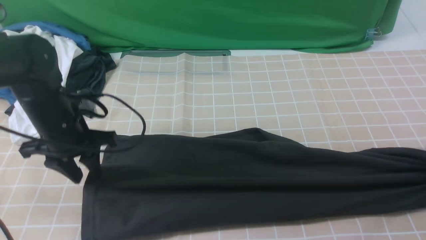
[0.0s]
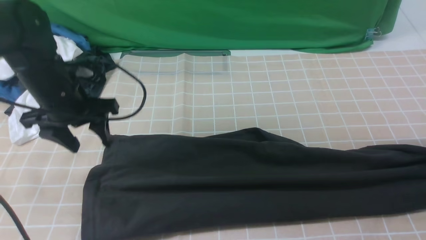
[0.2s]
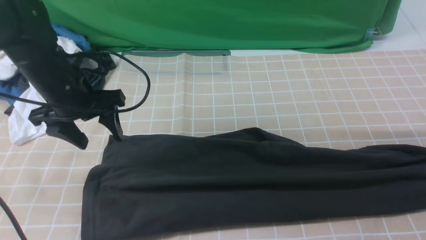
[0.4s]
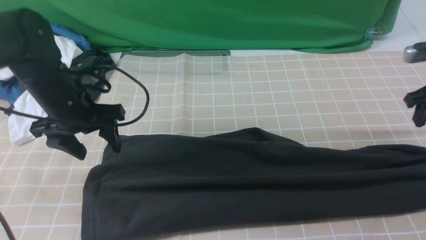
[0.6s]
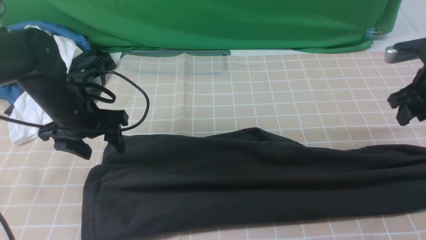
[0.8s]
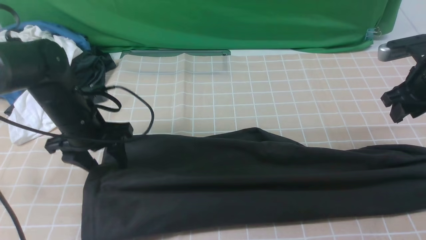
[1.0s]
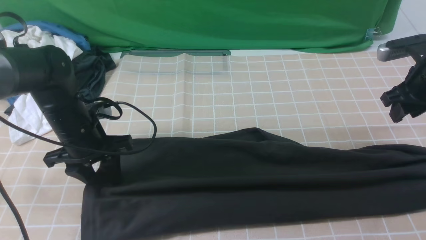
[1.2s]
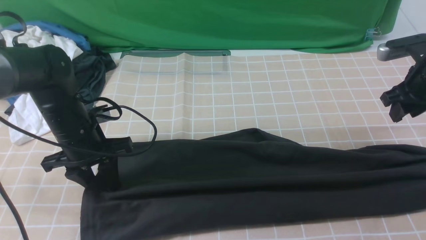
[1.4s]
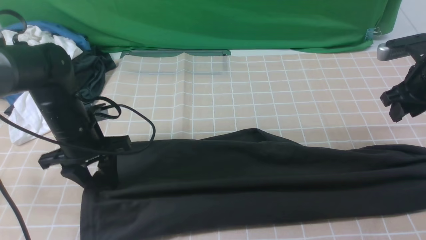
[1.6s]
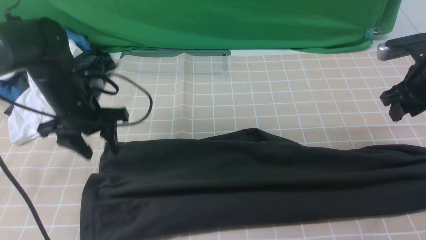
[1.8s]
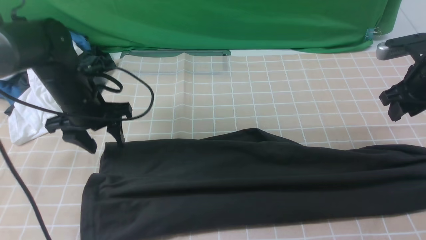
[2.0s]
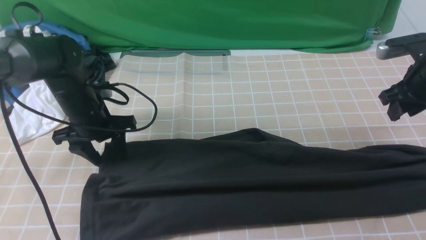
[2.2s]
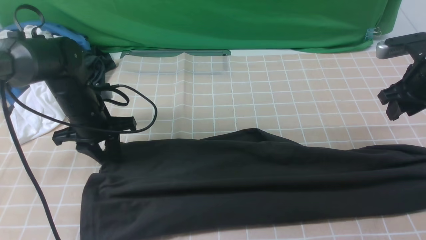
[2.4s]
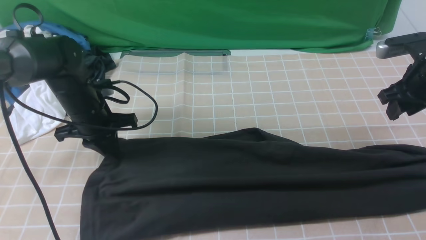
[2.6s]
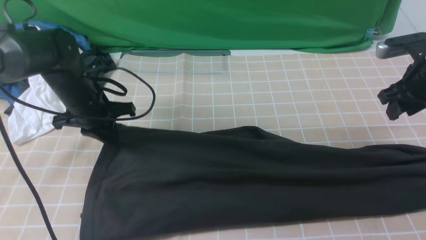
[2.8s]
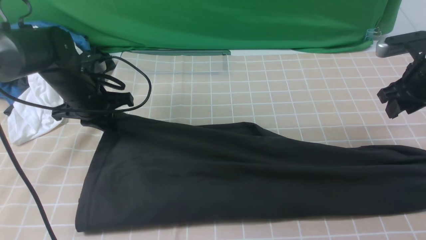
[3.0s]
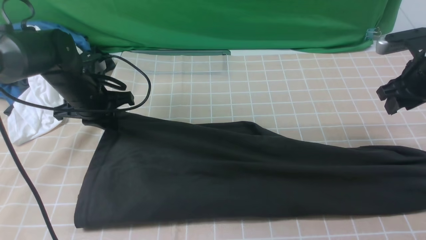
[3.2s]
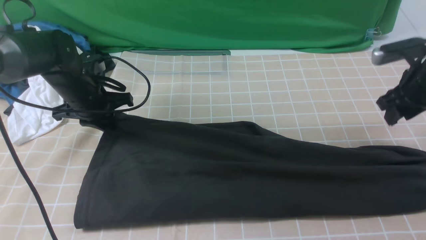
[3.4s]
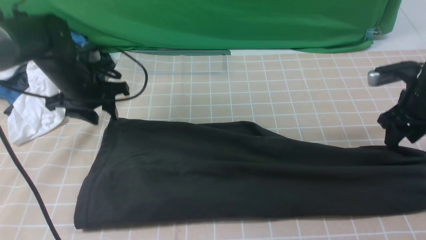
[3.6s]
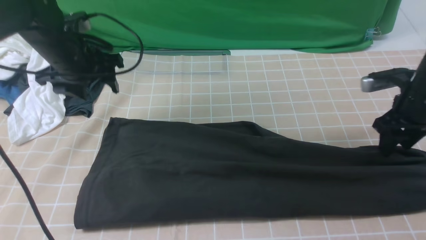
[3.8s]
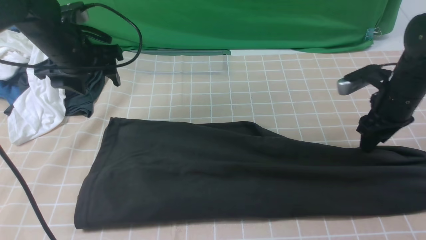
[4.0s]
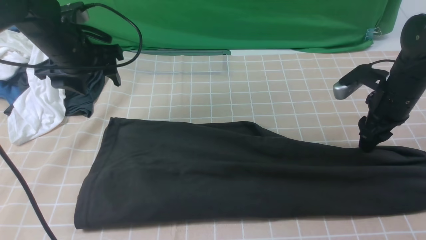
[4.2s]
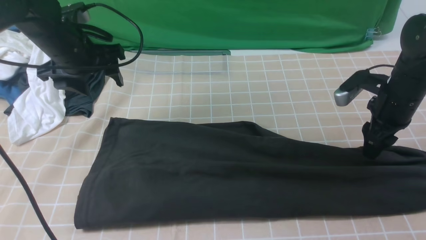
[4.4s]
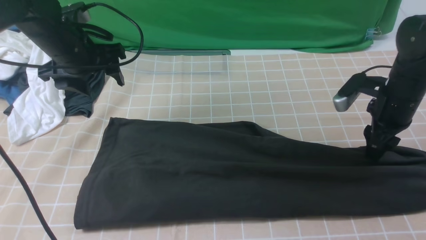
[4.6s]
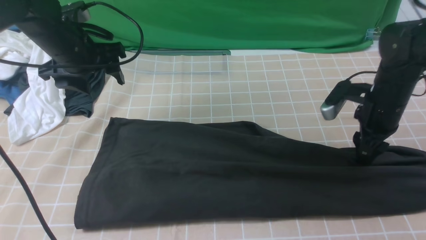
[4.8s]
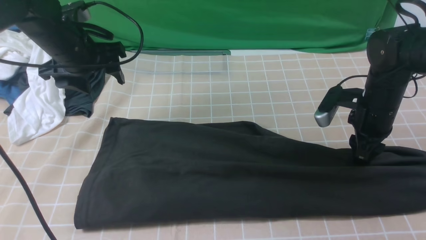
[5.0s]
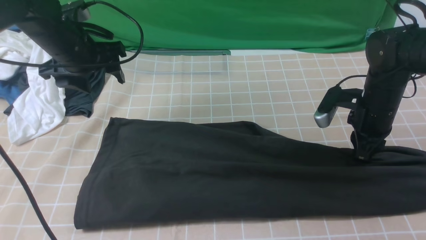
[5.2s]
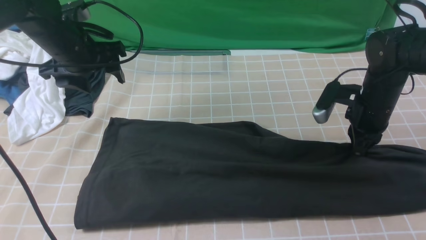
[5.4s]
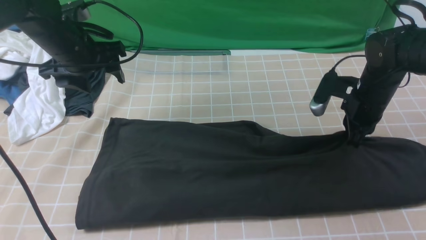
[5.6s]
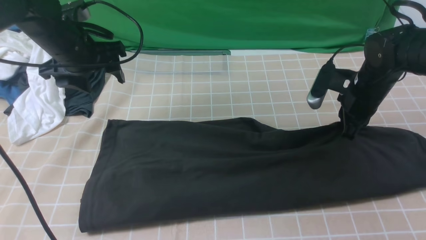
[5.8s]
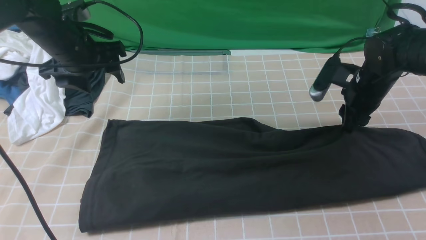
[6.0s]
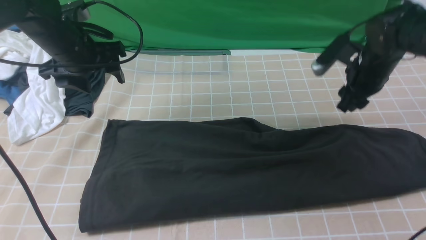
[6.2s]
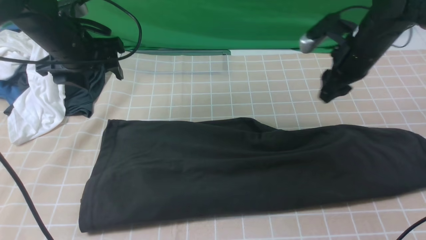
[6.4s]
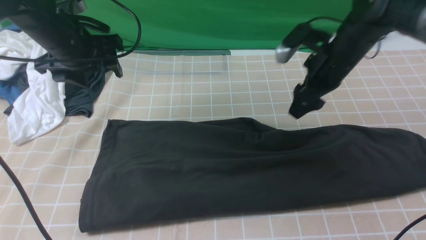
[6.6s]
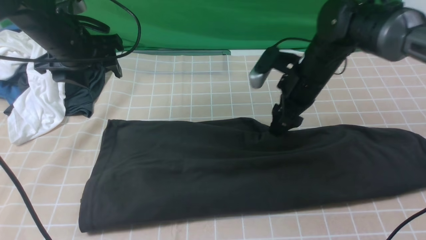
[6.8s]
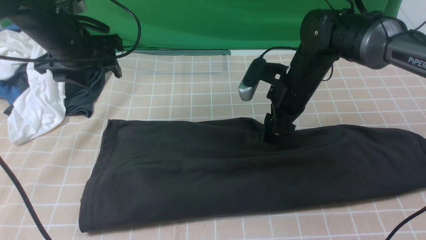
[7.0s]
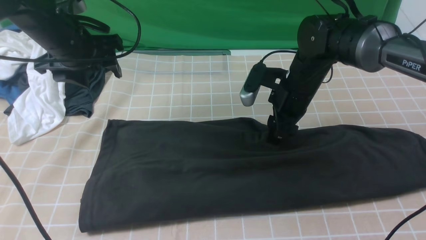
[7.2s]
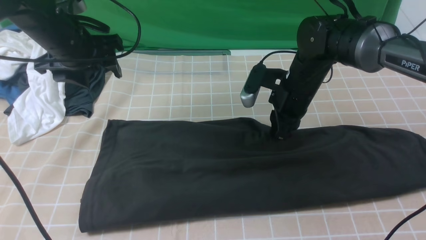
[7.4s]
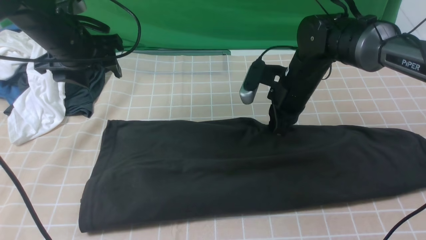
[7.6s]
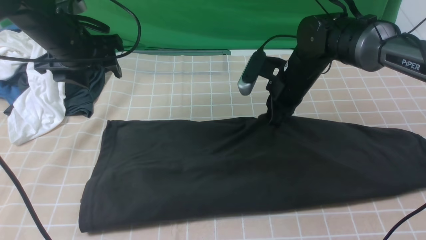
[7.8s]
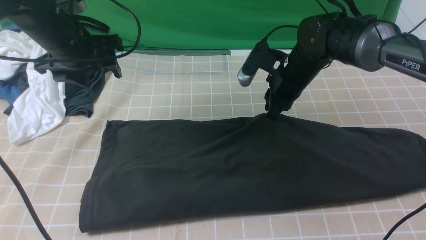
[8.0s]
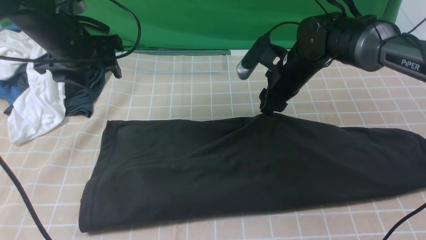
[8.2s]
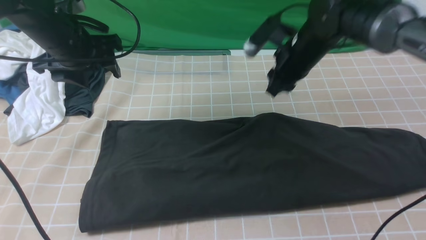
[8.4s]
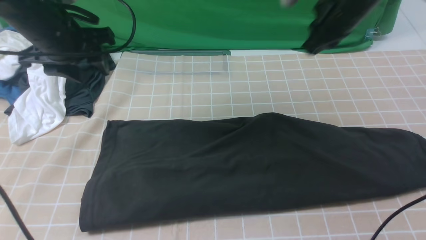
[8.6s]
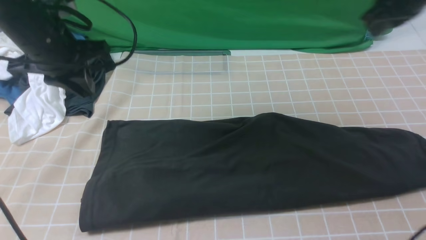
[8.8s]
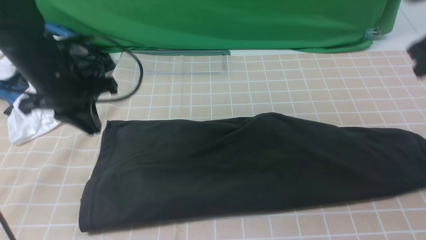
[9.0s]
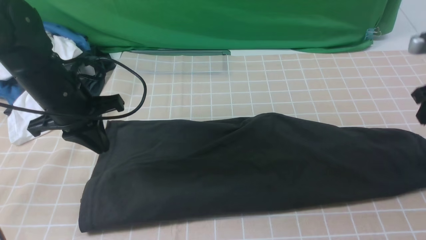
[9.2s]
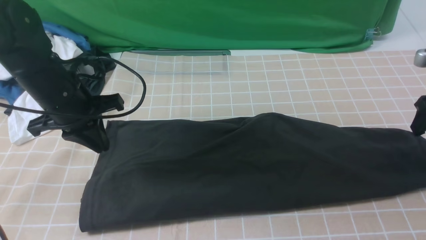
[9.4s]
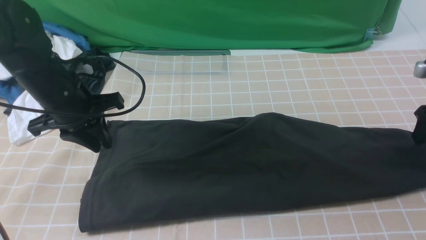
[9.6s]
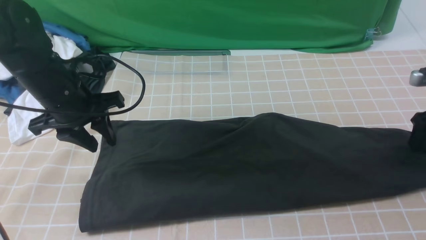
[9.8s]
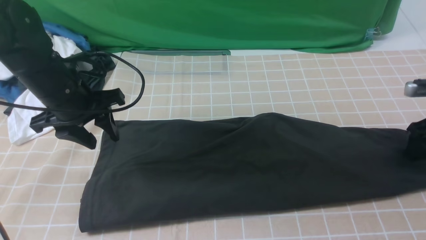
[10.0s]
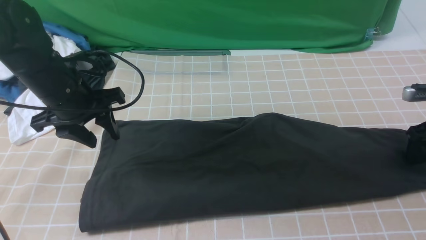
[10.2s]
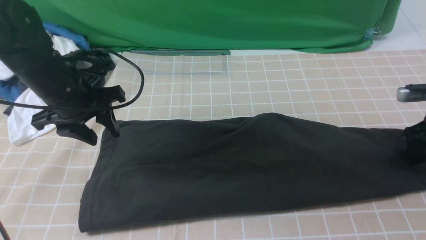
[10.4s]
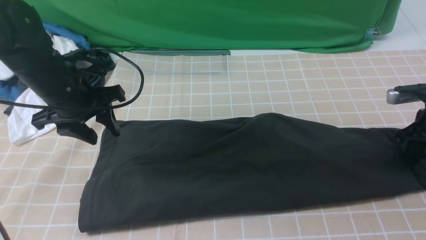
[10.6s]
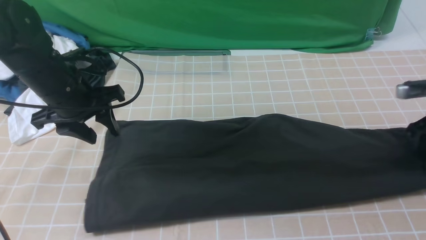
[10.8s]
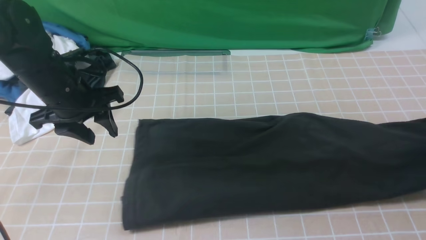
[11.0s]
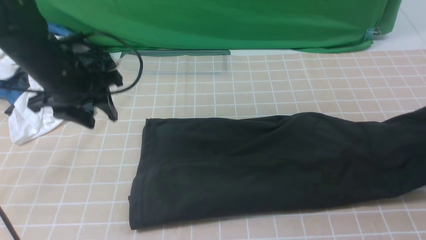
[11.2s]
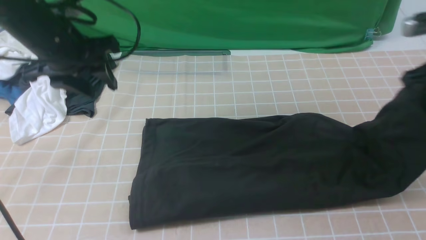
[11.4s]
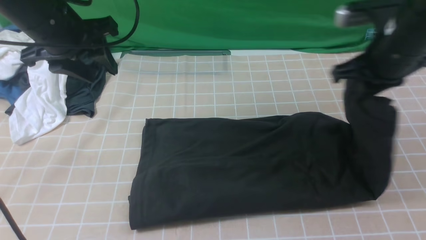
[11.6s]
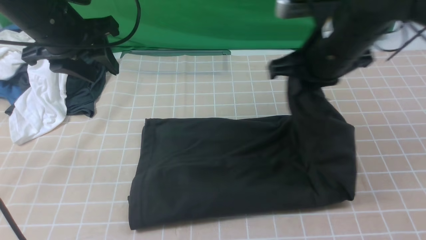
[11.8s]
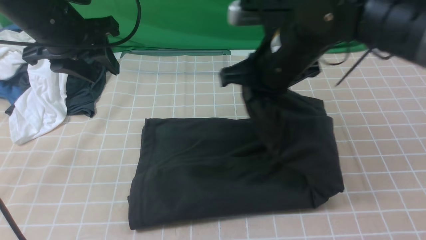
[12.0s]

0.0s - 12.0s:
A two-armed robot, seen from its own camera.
Step, 0.0s - 8.8s: use both arms to drag the lower edge of the fabric forward and fold it over the upper edge.
Step, 9.0s - 10.6s: use the right arm to clamp the right edge of the fabric.
0.0s - 1.6s: The left gripper opens, then closes again. Meanwhile the right gripper heads to the left, upward and forward, covering approximately 15 cm.
1.6s - 3.0s: The left gripper is displaced forward by about 5 cm, and closes.
3.0s - 4.4s: The right gripper goes approximately 5 cm to the left. The left gripper goes roughly 10 cm upward, and opens its fingers.
4.4s - 6.0s: The right gripper changes place by approximately 5 cm, and closes and opens again.
6.0s - 7.6s: The right gripper moves to the left, approximately 10 cm, and closes.
7.6s - 9.0s: The left gripper travels backward by roughly 5 cm, and closes up; the right gripper is displaced to the right and upward by approximately 25 cm, and opens, then closes once more.
9.0s - 10.4s: The right gripper is displaced downward by roughly 15 cm, and opens up. The left gripper opens its fingers.
10.4s - 12.0s: The left gripper moves upward, roughly 10 cm. The right gripper moves to the left and upward, roughly 35 cm, and closes its fingers.

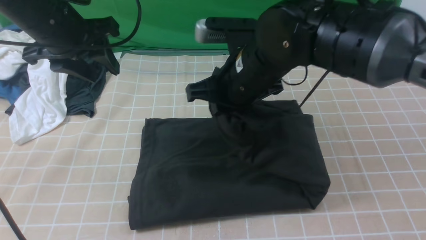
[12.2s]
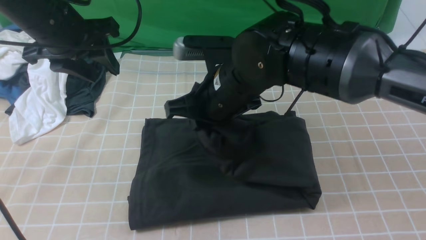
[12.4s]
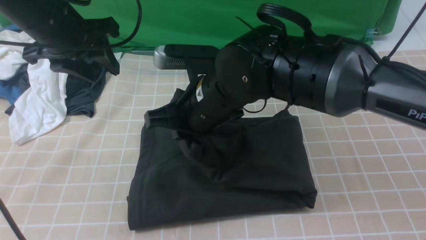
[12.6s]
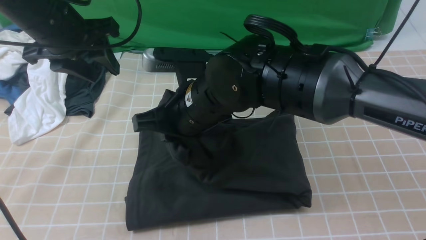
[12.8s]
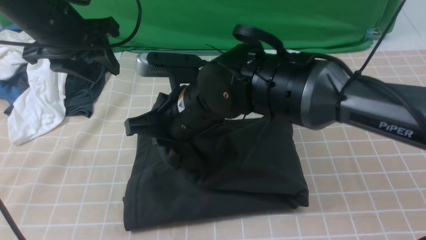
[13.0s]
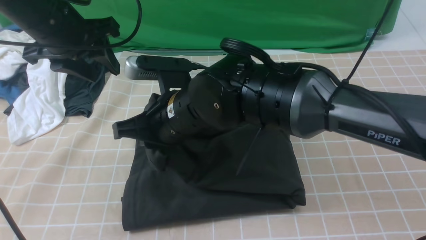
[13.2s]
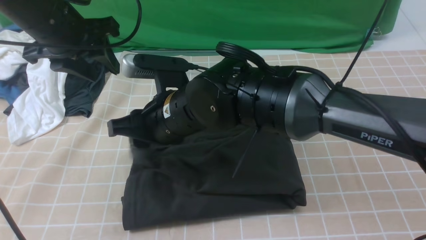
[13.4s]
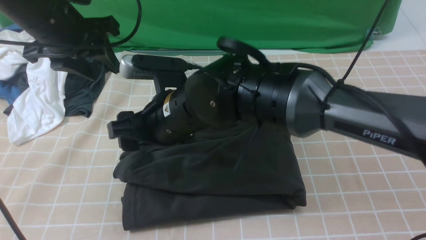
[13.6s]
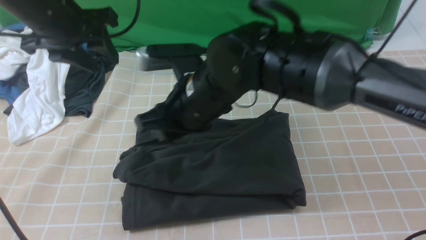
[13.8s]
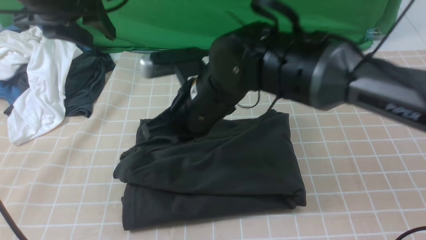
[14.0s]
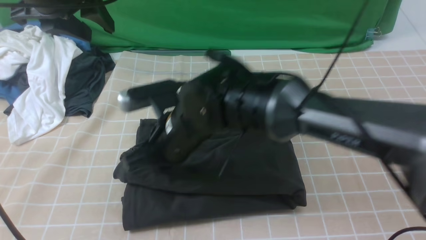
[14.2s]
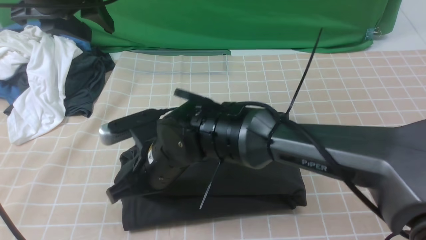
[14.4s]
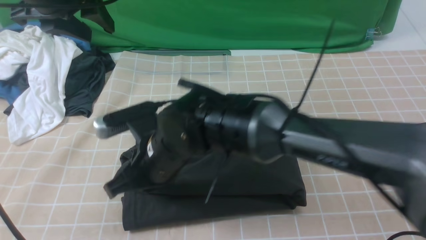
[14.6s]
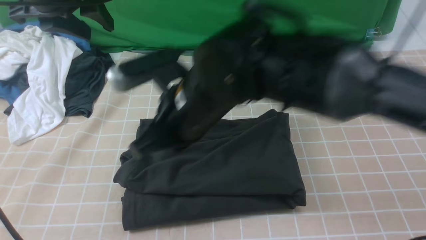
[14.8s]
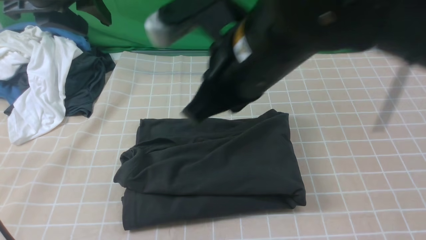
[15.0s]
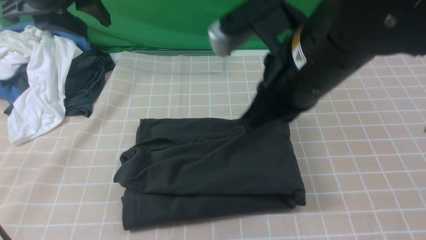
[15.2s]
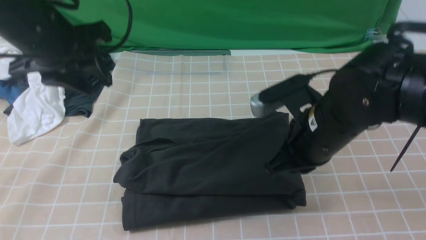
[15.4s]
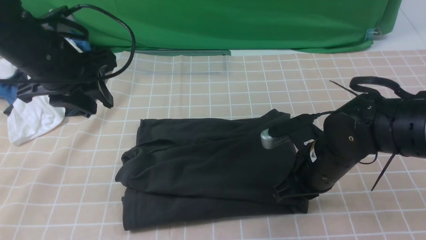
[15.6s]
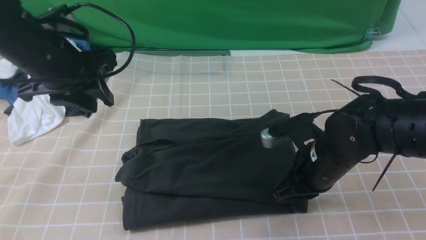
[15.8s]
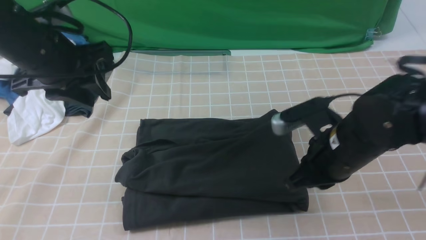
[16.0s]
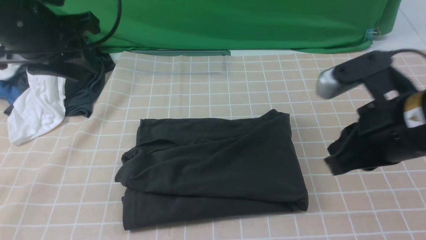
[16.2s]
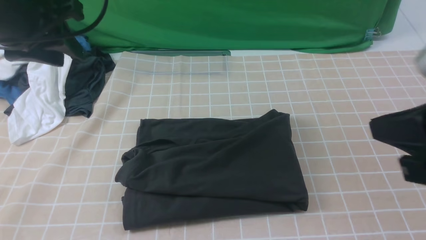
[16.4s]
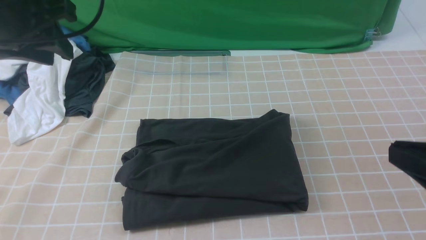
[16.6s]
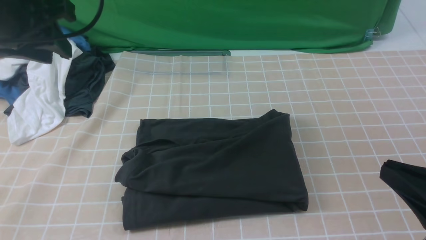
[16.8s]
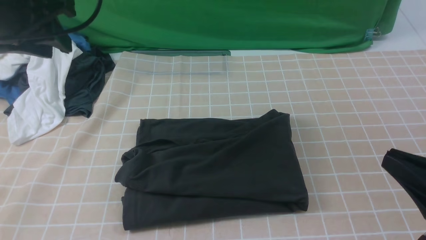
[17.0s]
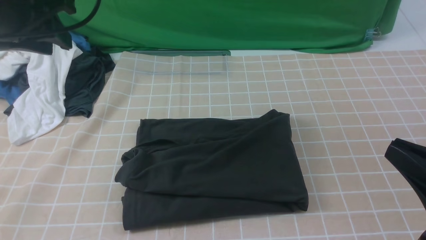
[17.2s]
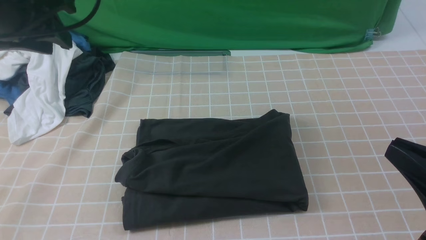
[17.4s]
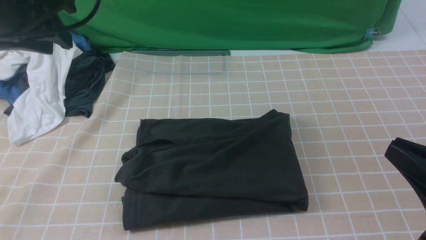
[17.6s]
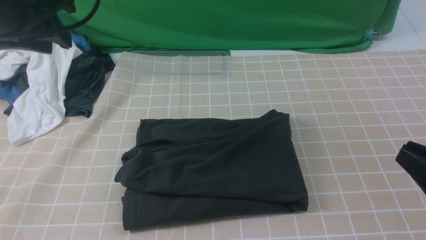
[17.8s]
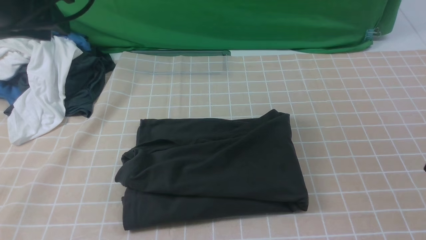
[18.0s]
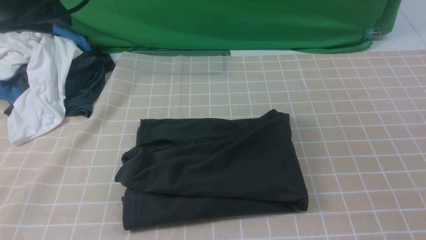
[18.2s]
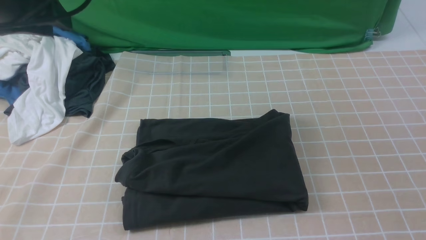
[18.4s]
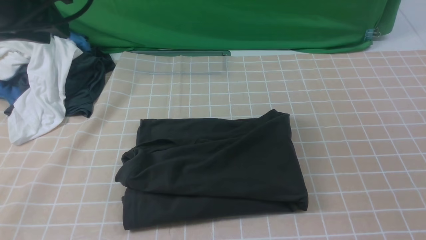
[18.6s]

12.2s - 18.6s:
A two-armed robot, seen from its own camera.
12.2s - 13.8s: The right gripper shifts some 5 cm to the left, and opens its fingers.
13.8s - 15.4s: The right gripper is displaced to the right by about 15 cm, and closes its fingers.
15.4s - 17.0s: The right gripper shifts about 20 cm backward and to the right. The left gripper heads upward, covering about 5 cm.
17.0s - 18.6s: The right gripper goes approximately 10 cm downward and to the right.
